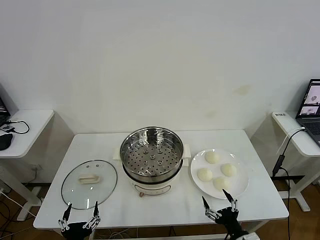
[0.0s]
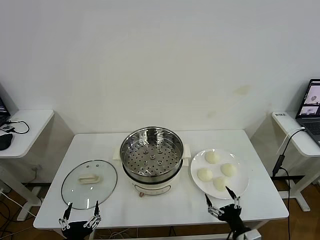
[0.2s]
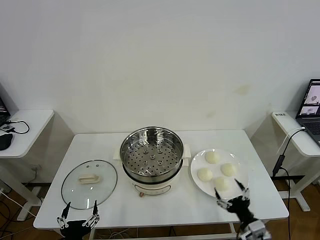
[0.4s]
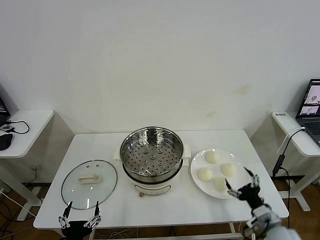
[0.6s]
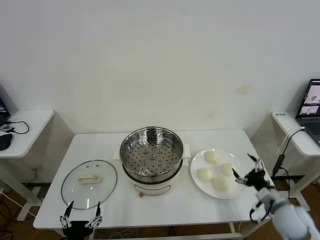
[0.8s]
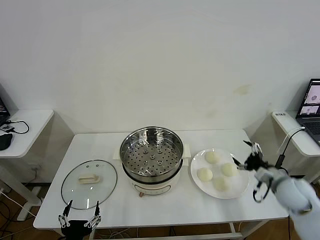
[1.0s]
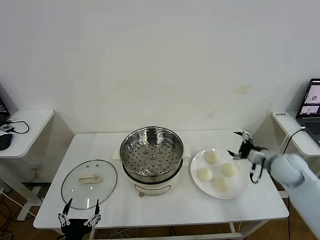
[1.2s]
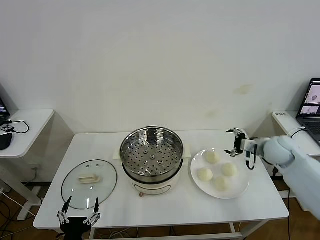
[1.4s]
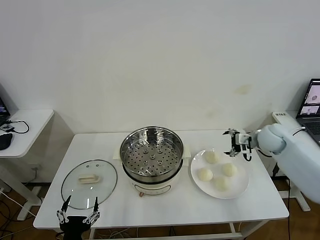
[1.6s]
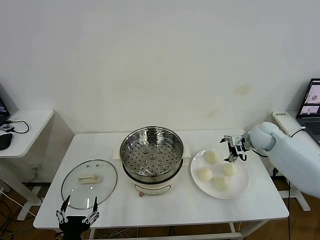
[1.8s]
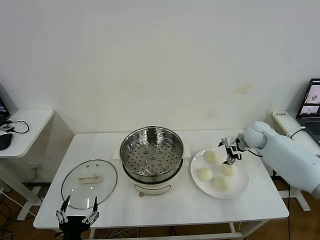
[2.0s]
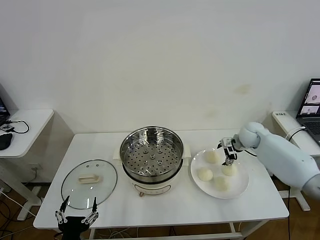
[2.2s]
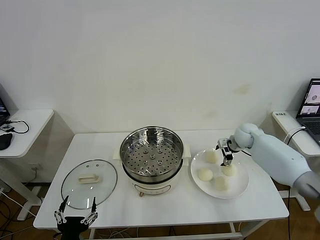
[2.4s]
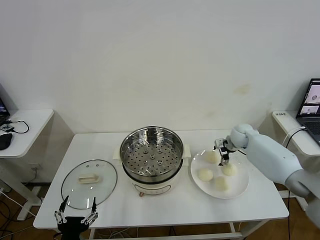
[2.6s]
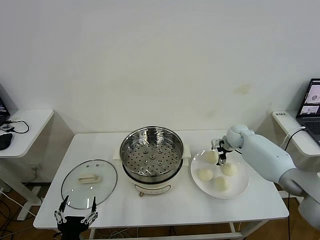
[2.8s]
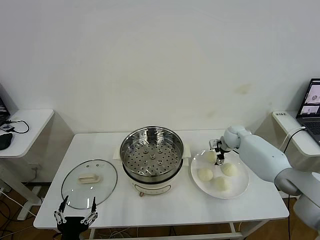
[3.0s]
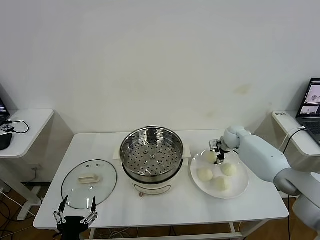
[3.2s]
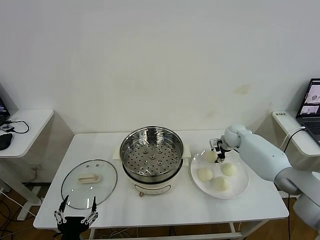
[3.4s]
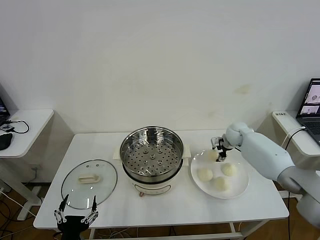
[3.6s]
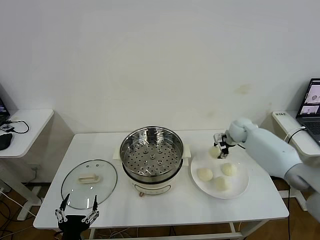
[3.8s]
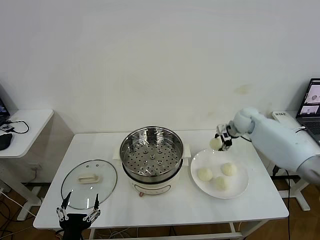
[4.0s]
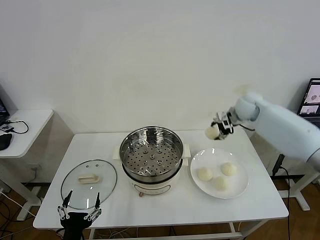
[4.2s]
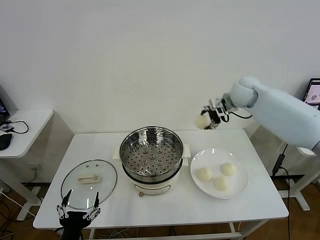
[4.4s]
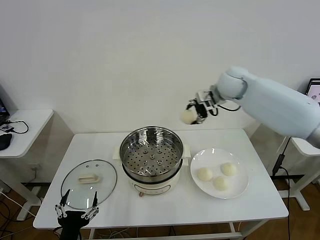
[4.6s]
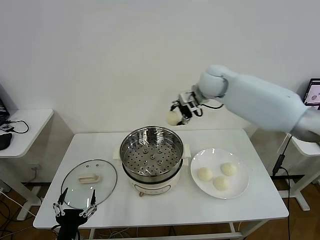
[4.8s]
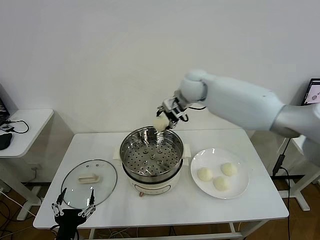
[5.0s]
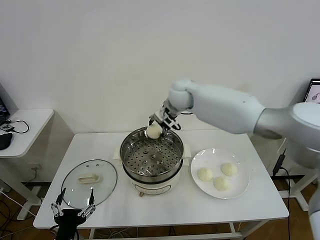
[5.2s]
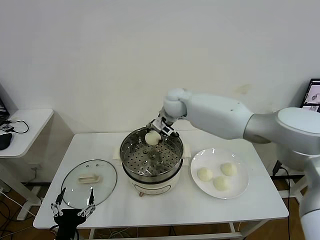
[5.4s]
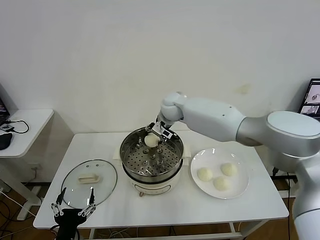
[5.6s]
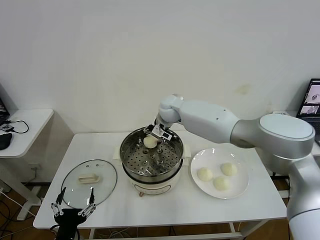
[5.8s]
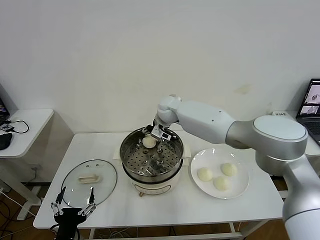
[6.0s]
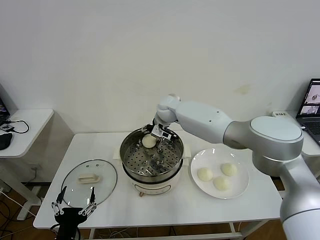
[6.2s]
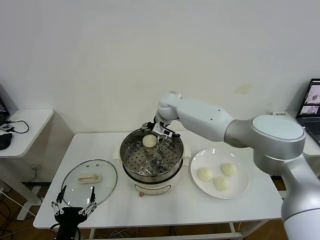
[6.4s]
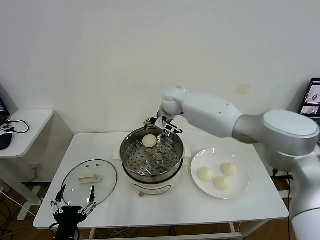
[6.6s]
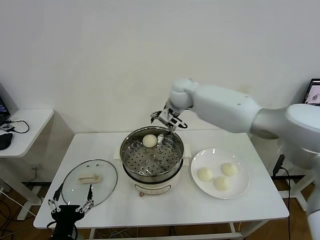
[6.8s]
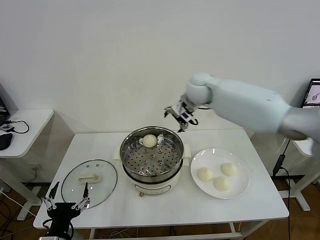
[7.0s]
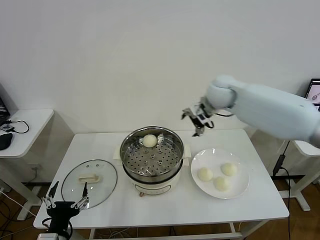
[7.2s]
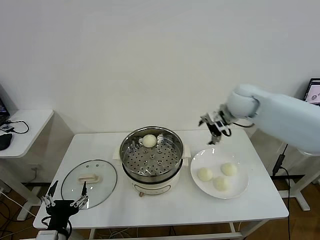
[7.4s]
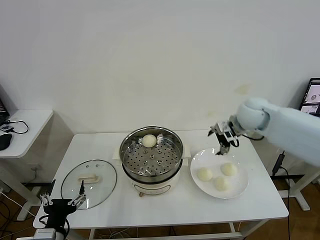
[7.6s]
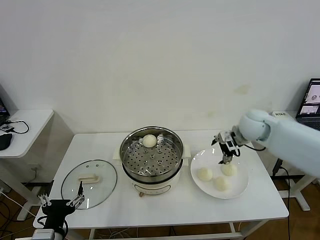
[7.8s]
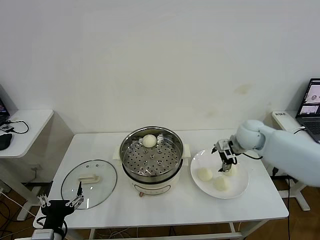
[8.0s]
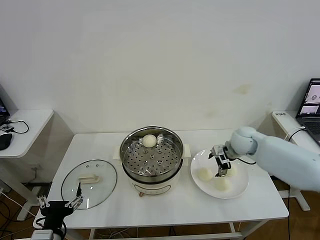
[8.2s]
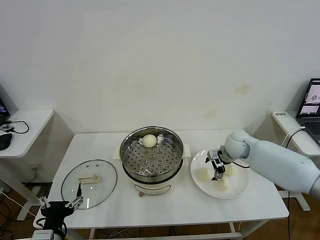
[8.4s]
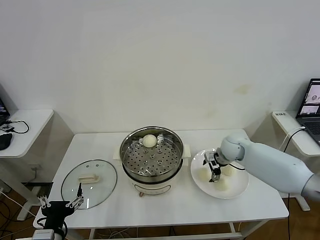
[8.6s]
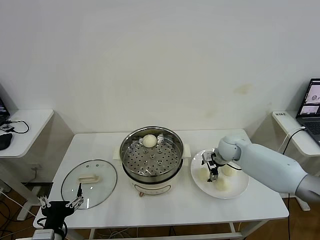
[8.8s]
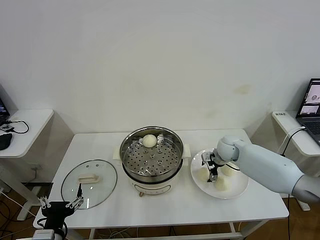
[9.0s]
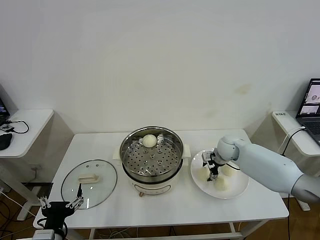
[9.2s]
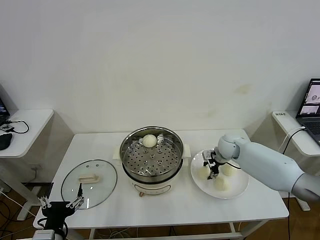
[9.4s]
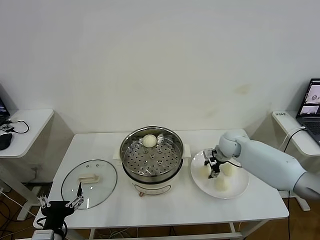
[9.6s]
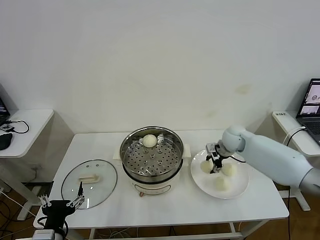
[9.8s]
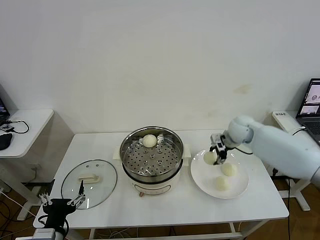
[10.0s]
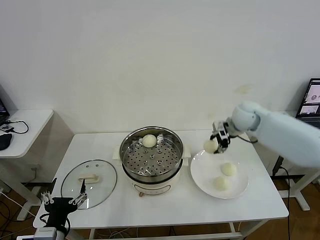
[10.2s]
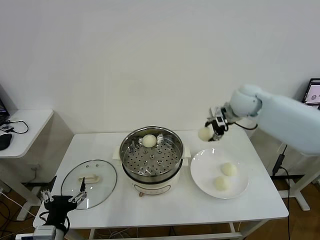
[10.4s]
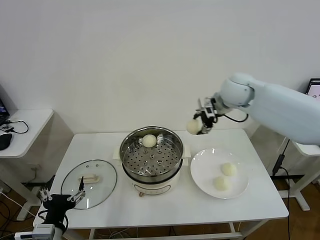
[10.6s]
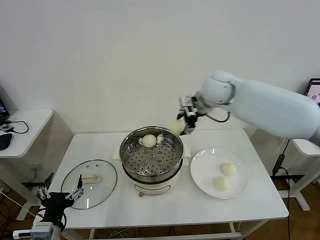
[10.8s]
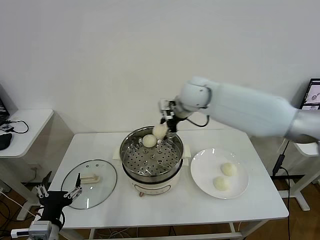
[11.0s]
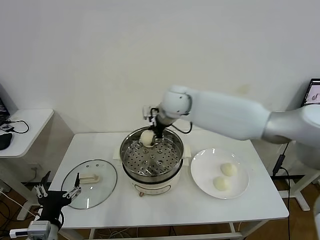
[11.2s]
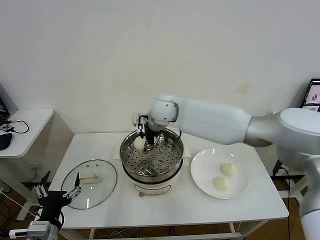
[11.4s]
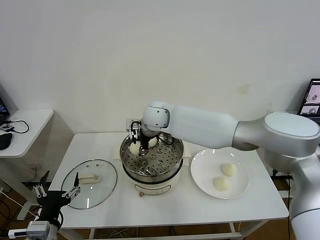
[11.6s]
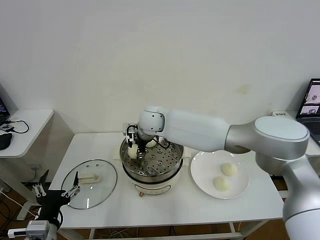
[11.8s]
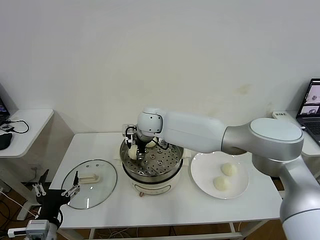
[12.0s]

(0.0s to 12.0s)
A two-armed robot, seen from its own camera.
Task of the whole recording: take steamed baozi put them in steamer then cover it.
Step, 0.0s - 3.4s: Grasp the baozi in the plate with right gripper.
Step, 3.6s - 6.4s: Place the baozi on the steamer with right gripper.
Step, 6.6s - 9.4s: Grasp the baozi in the plate with right gripper.
1.6s - 3.0s: The right gripper shifts about 15 cm downward, forward and to the left, and closes.
3.0s - 4.4s: The right gripper goes about 25 cm upward, and closes up.
4.4s - 6.0s: The right gripper moves to the left and downward, approximately 25 cm.
6.0s - 7.6s: The right gripper goes roughly 25 cm to the right, and opens up.
7.6s - 9.0s: The right gripper moves downward, approximately 15 cm.
9.0s - 10.4s: The right gripper heads upward, covering roughly 25 cm, and closes.
10.4s - 12.0s: The right gripper heads to the left, covering about 30 cm, and opens.

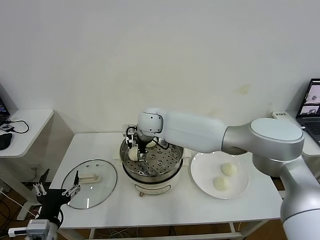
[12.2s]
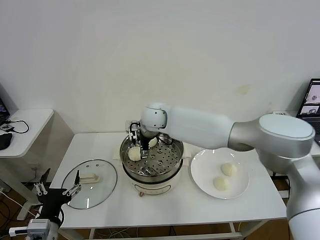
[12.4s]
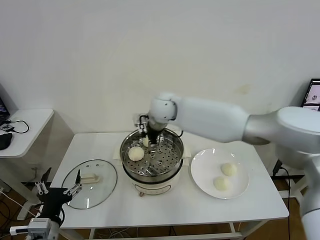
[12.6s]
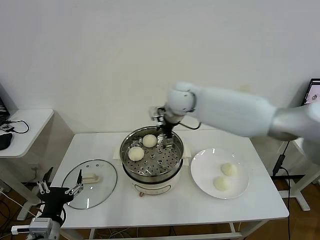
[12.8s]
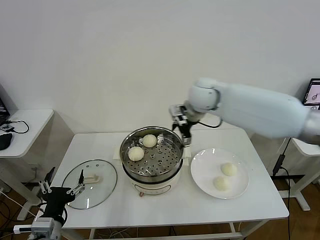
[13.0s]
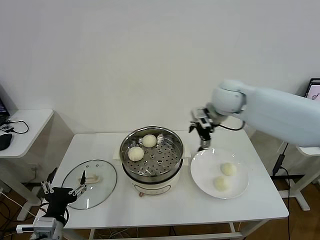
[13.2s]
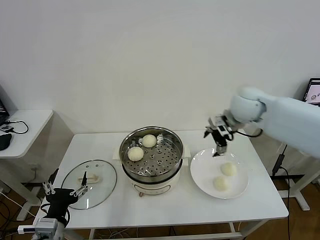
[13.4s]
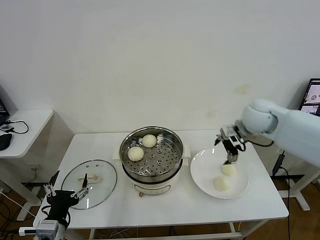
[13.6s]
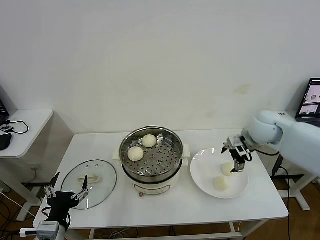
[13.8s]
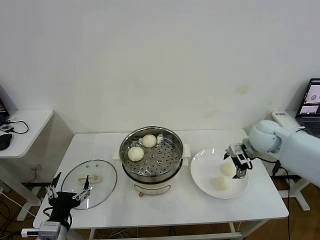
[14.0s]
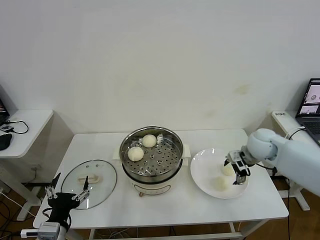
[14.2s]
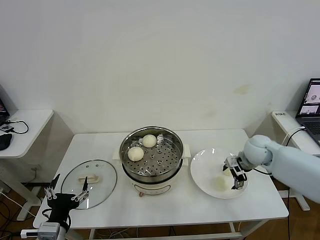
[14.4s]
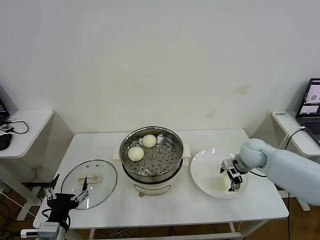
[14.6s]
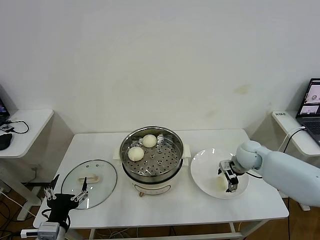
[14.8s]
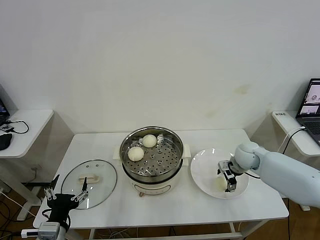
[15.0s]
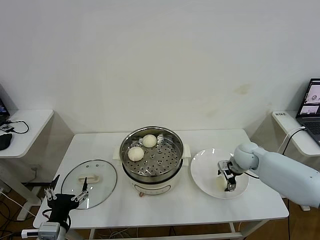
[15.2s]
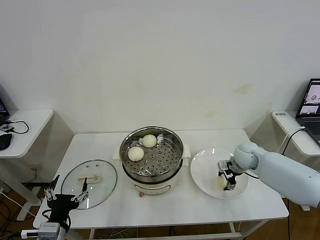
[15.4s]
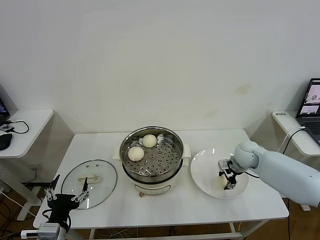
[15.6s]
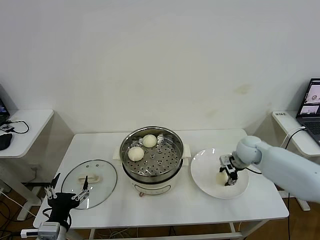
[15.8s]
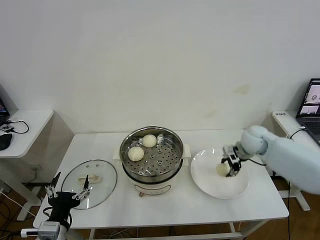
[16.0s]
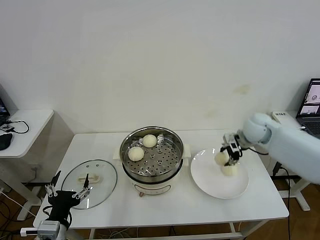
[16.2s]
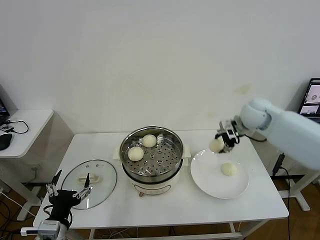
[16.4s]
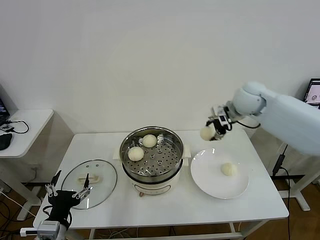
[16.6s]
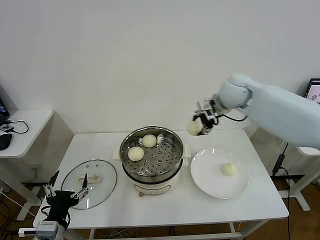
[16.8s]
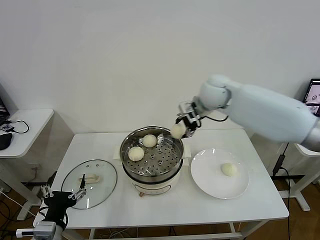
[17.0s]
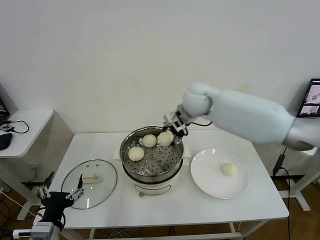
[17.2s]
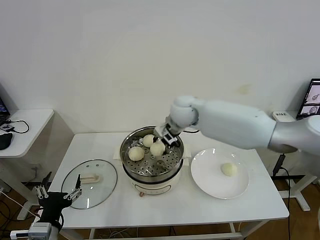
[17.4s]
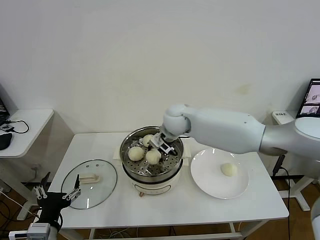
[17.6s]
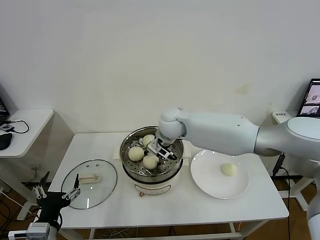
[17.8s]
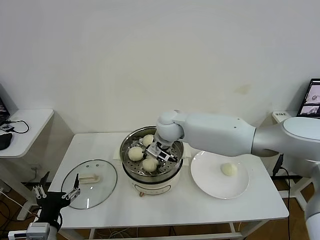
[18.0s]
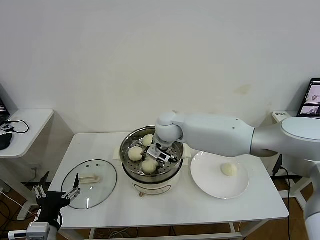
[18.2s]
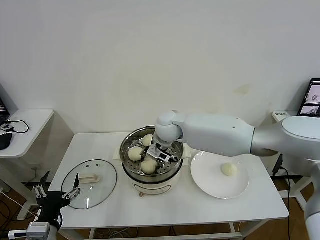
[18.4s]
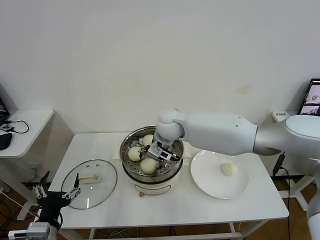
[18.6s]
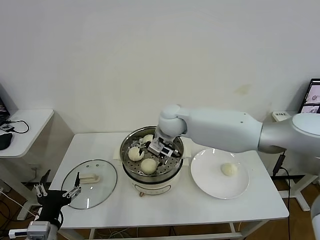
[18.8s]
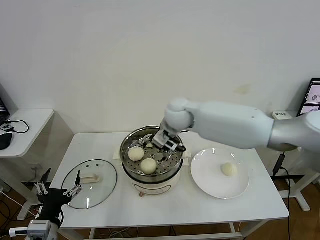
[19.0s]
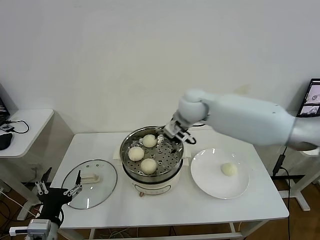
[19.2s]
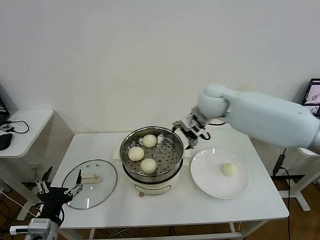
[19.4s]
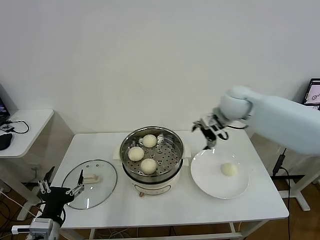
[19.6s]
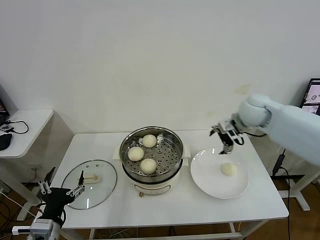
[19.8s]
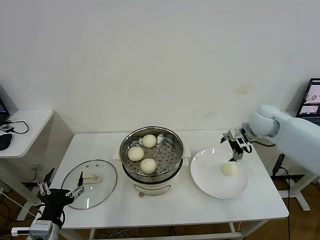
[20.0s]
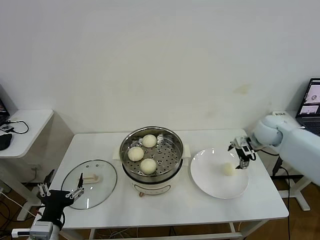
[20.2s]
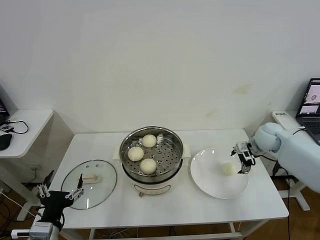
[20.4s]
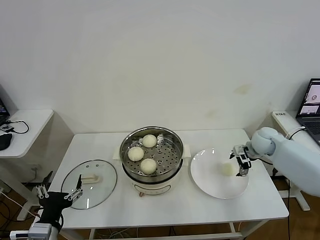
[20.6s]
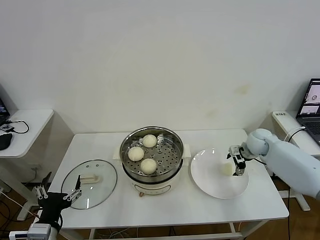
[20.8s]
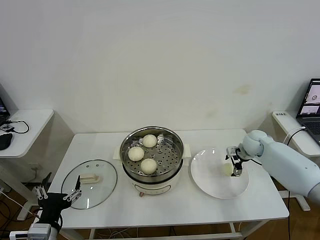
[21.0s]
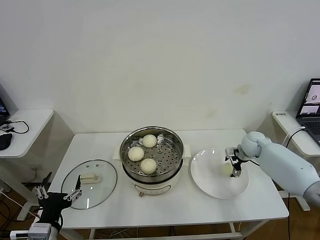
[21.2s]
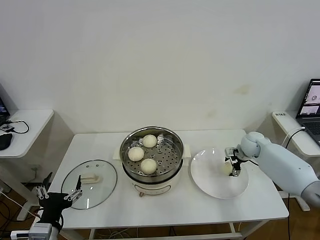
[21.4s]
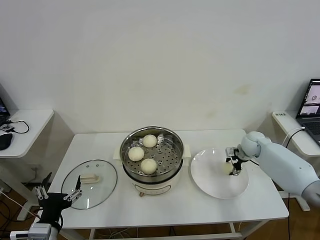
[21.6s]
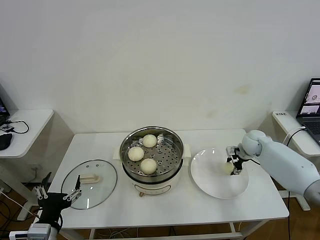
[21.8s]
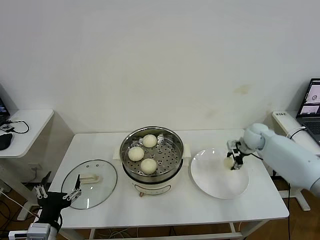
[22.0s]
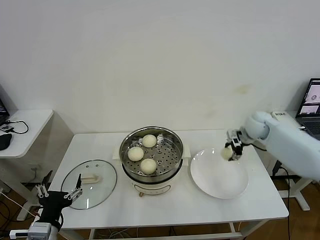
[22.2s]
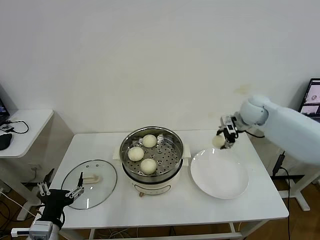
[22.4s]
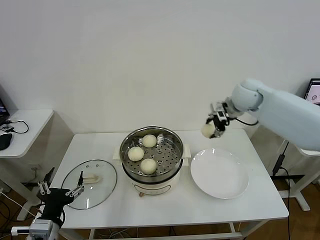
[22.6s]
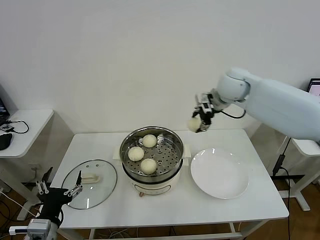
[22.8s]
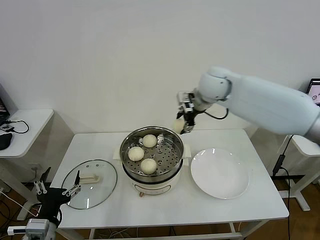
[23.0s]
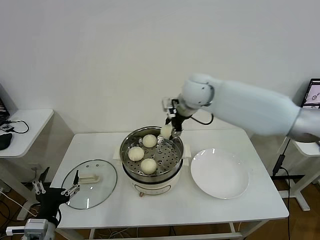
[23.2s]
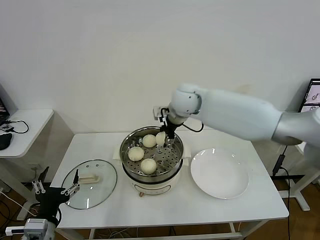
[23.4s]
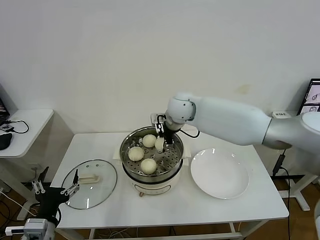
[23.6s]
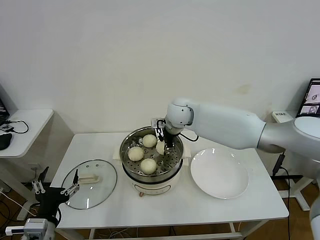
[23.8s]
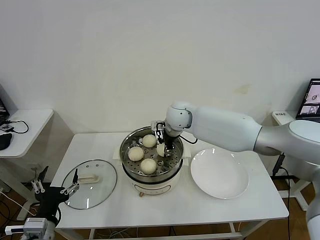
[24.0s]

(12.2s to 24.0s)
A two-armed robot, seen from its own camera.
Task of the whole recording: take steamed baozi put them in steamer then cover it.
Step, 12.4s - 15.6s: Grasp the baozi in the plate with right gripper.
Step, 15.8s - 18.8s: Place the baozi on the steamer with right gripper.
Step, 19.0s - 21.8s: Grasp the baozi in the plate with right gripper.
12.2s - 13.6s: The right gripper goes approximately 35 cm to the right.
13.6s - 15.2s: The right gripper shifts some 15 cm downward, and closes up.
15.2s - 16.6s: The right gripper shifts roughly 25 cm upward, and closes up.
16.6s - 18.2s: The right gripper goes some 25 cm to the left and downward.
18.2s - 19.6s: The right gripper travels to the right by some 25 cm, and opens its fingers.
19.6s - 21.0s: The right gripper shifts about 25 cm downward and to the right.
21.0s - 22.6s: The right gripper goes about 25 cm upward and to the left, and closes up.
22.6s - 24.0s: The right gripper is displaced to the left and downward by some 20 cm.
